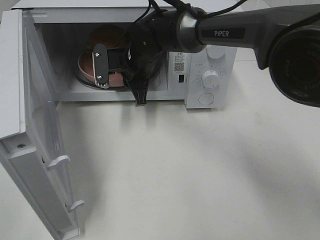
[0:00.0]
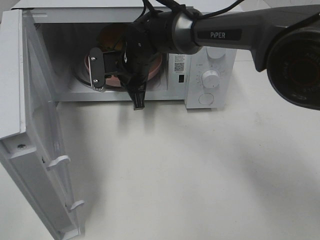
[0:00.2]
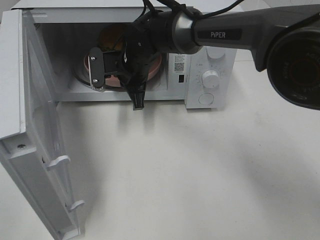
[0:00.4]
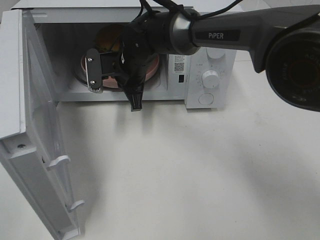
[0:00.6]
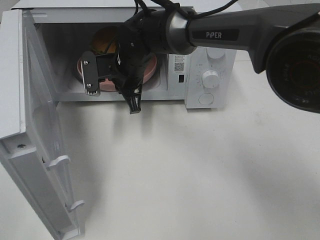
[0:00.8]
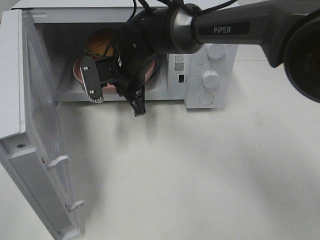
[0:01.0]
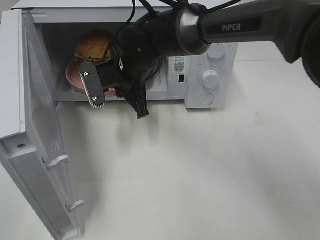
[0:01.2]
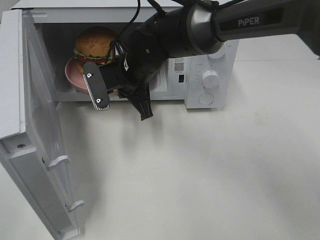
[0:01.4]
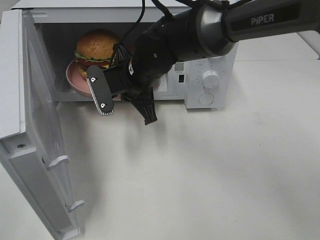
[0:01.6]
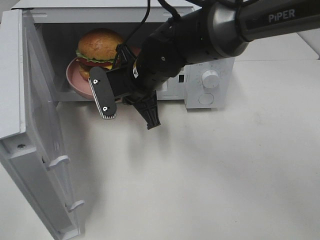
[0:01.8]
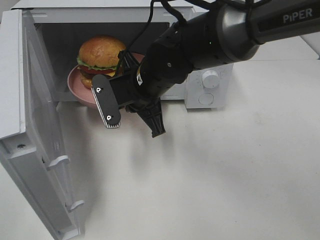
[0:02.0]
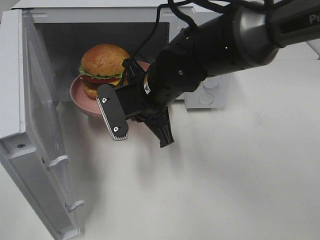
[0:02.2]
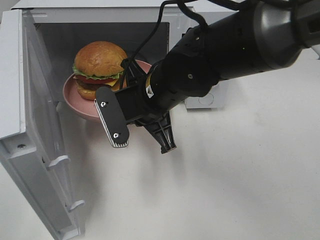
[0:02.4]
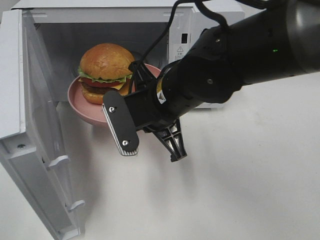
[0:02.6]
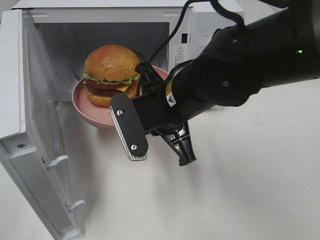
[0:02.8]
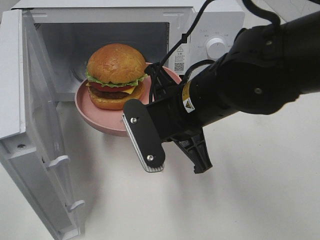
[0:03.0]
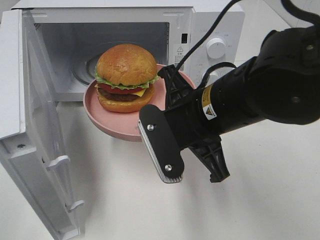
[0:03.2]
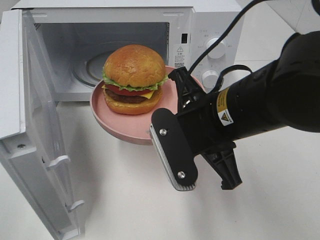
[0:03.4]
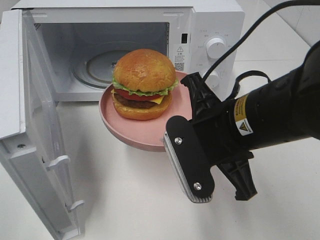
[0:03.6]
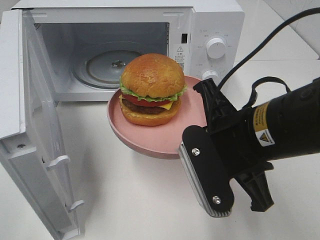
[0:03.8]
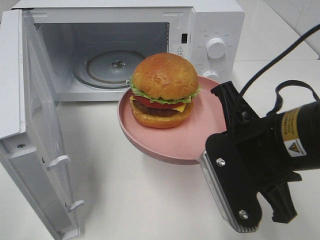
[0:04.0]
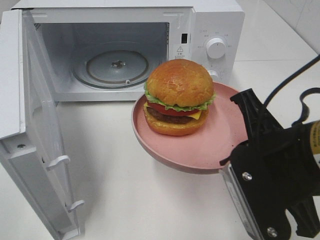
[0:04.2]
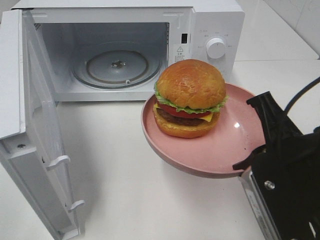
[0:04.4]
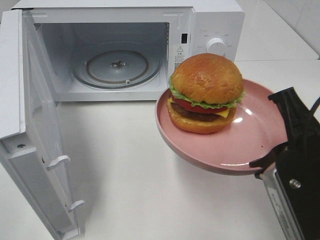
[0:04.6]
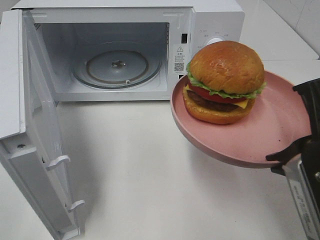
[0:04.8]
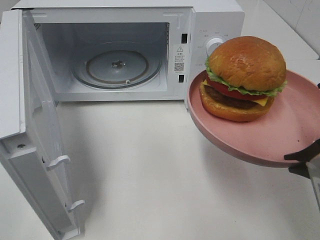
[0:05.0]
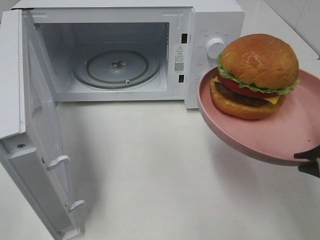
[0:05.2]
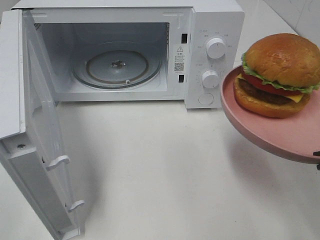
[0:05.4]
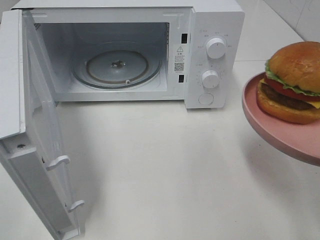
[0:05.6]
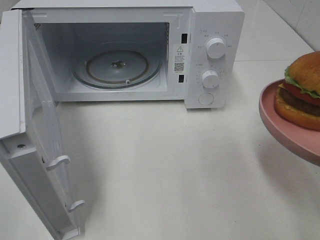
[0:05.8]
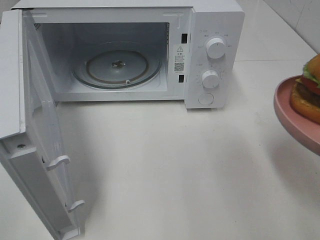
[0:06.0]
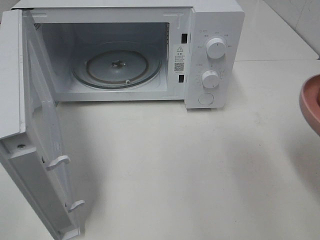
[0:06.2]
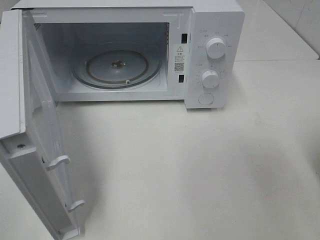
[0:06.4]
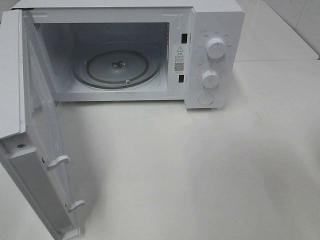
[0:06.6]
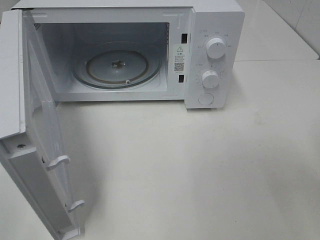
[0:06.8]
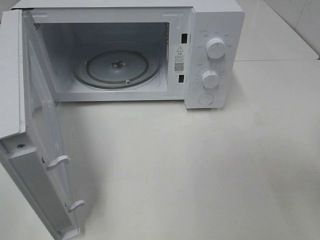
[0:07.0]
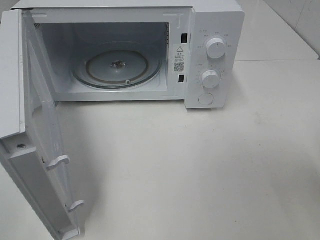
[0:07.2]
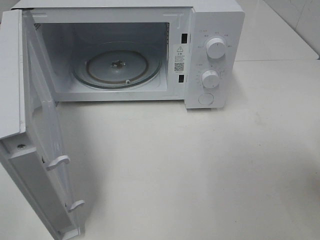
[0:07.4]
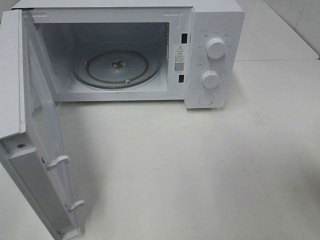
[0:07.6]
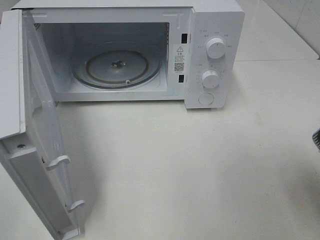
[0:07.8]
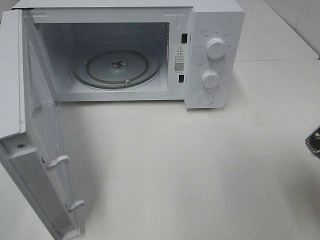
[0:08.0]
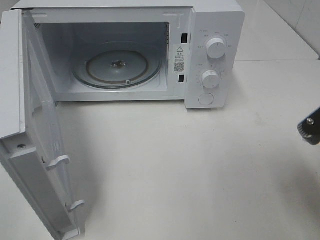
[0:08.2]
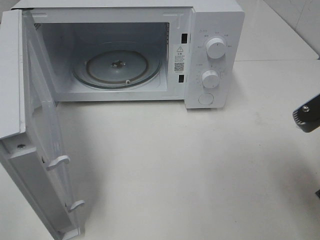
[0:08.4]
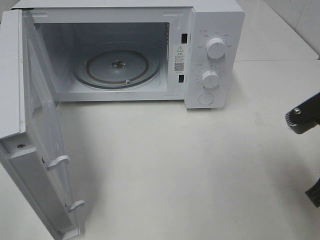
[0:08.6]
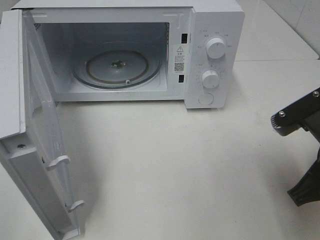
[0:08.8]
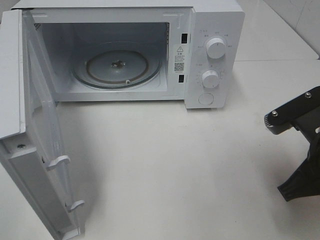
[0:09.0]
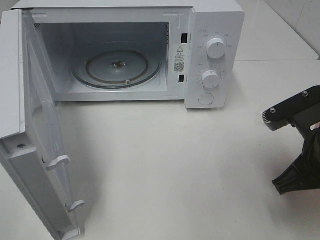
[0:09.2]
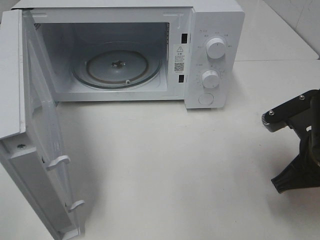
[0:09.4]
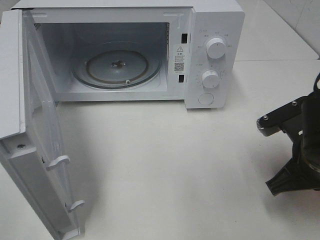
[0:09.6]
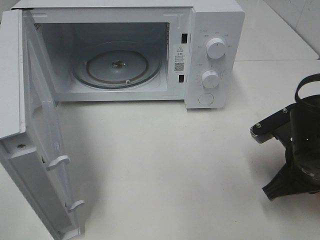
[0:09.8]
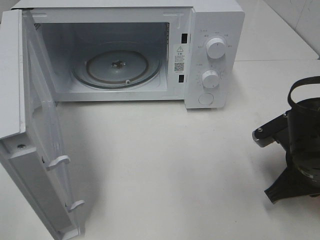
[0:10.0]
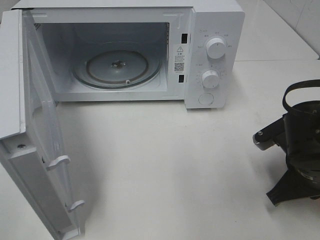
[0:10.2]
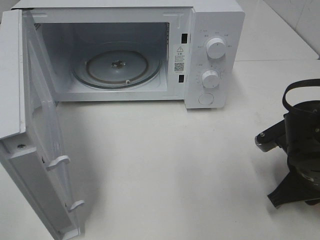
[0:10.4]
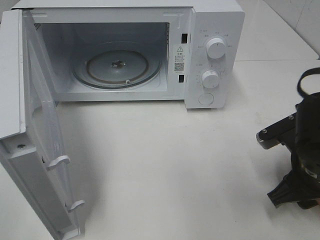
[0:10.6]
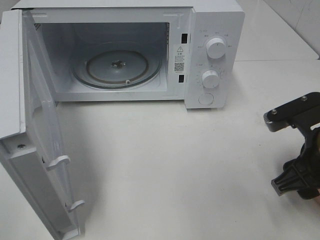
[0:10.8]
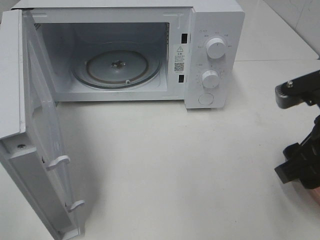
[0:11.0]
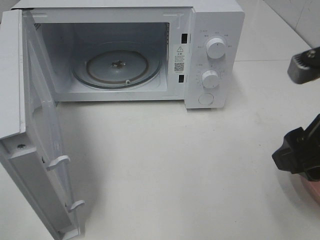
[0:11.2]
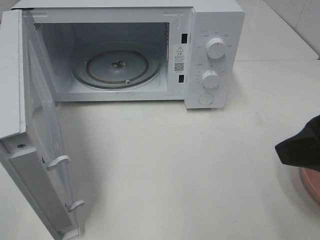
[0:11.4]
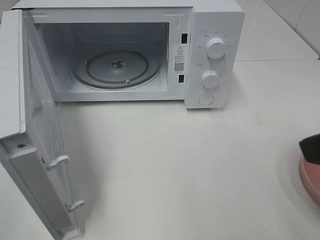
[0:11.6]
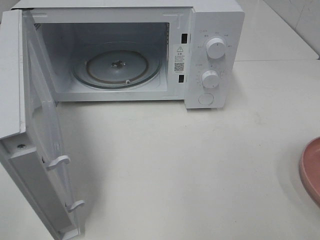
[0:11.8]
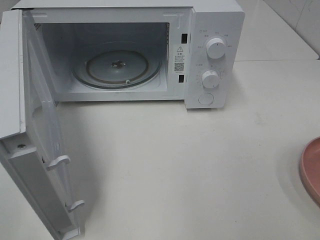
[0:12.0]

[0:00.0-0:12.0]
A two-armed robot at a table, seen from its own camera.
Task of the whole recording: Heat the burger.
Step, 0:00.4 to 0:10.4: Right hand: place the plate on the table.
0:00.0 to 0:01.6: The right gripper moves backward, about 5 cm.
0:01.6 to 0:03.0: The right gripper travels backward and to the right by about 15 cm.
0:03.0 to 0:04.4: The right gripper moves to the right and backward, approximately 15 cm.
0:04.4 to 0:06.0: The right gripper shifts about 10 cm to the right.
0:07.6 to 0:09.0: The right gripper shifts by approximately 10 cm.
0:09.0 to 0:10.4: The right gripper goes some 5 cm downward.
0:10.4 to 0:12.0: The right gripper travels upward and backward by some 25 cm, and opens up.

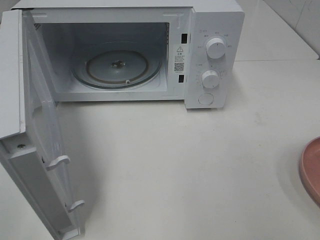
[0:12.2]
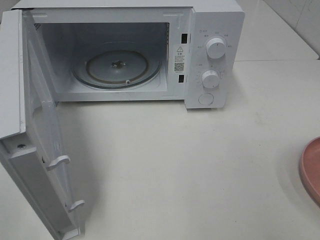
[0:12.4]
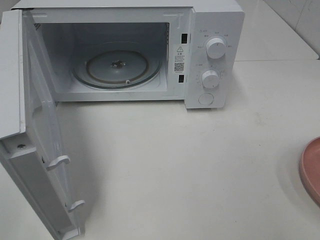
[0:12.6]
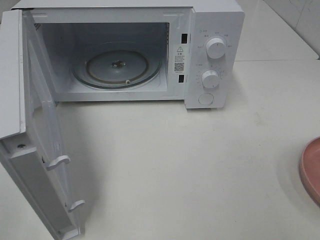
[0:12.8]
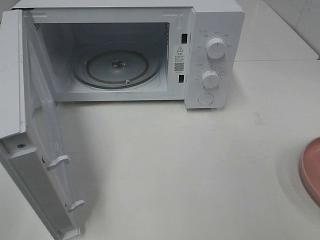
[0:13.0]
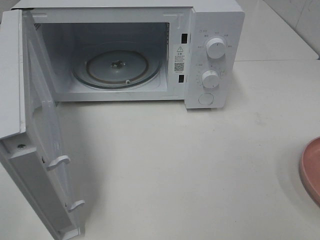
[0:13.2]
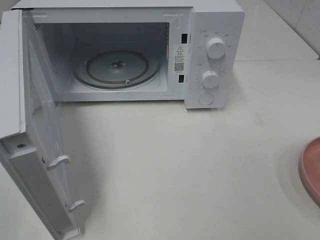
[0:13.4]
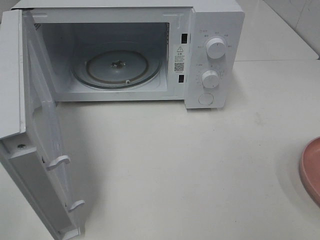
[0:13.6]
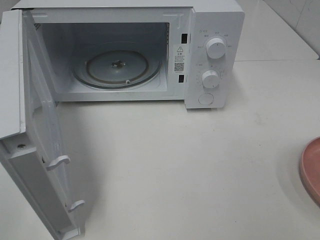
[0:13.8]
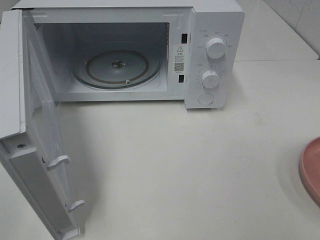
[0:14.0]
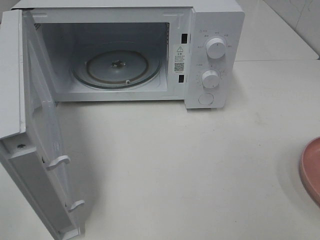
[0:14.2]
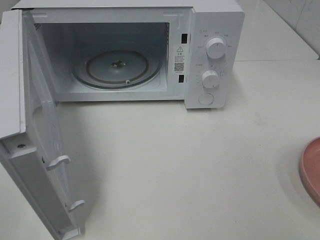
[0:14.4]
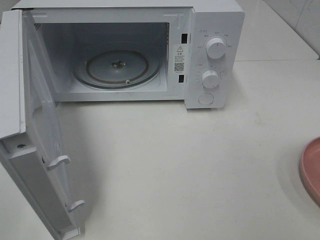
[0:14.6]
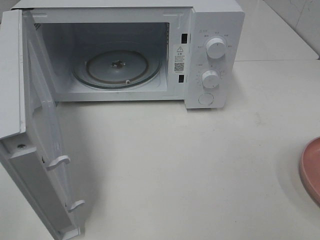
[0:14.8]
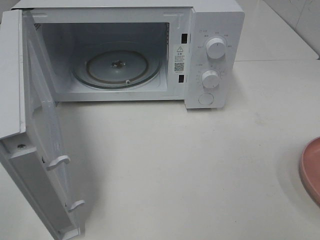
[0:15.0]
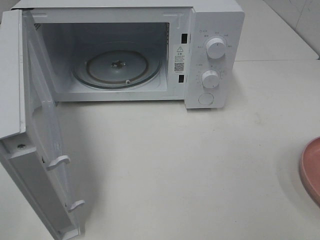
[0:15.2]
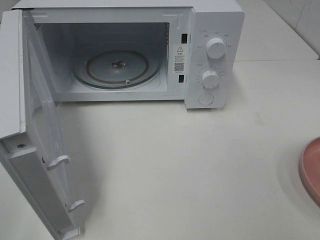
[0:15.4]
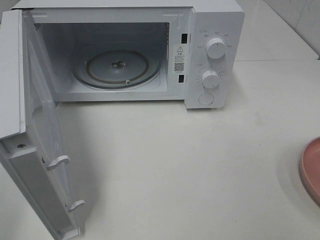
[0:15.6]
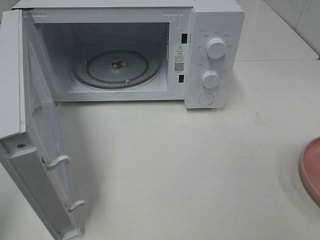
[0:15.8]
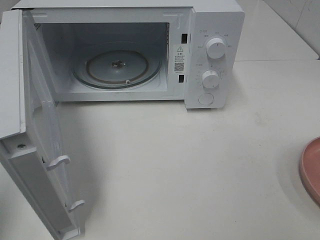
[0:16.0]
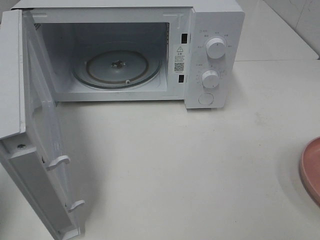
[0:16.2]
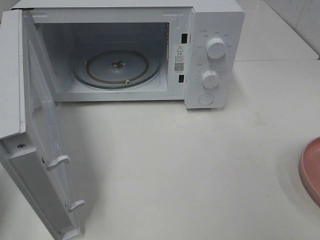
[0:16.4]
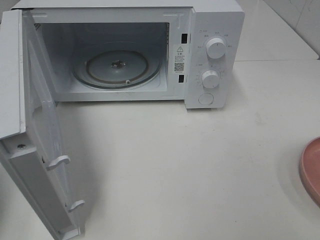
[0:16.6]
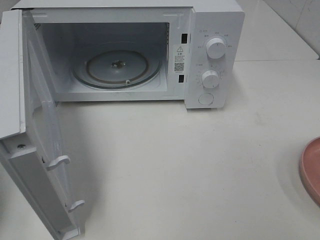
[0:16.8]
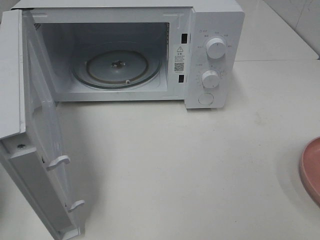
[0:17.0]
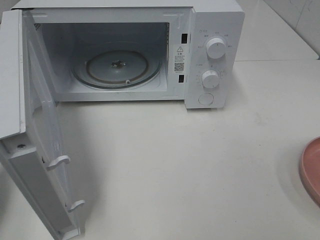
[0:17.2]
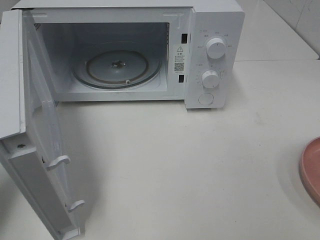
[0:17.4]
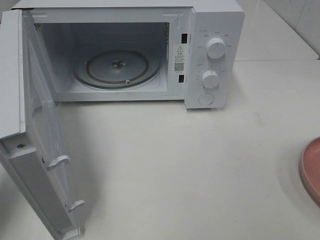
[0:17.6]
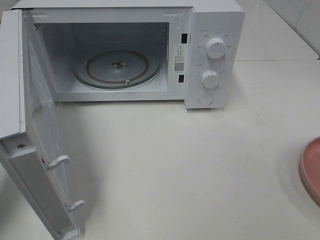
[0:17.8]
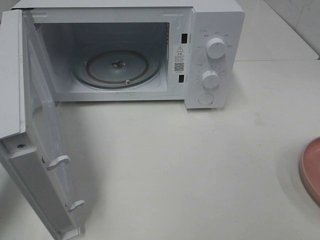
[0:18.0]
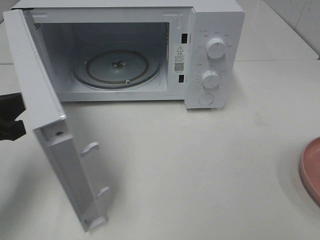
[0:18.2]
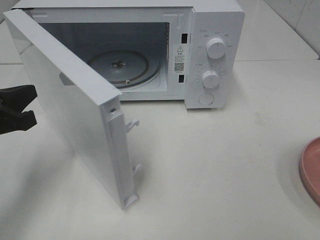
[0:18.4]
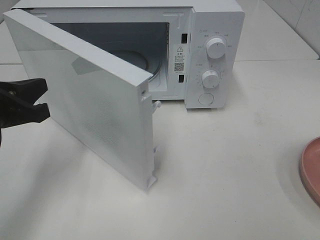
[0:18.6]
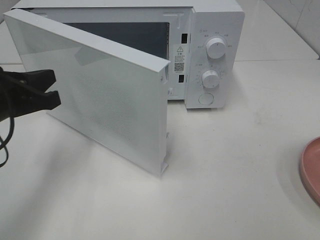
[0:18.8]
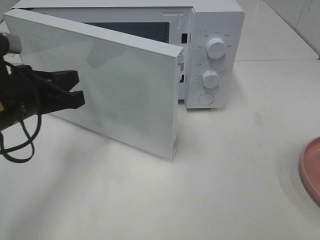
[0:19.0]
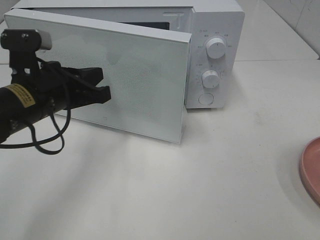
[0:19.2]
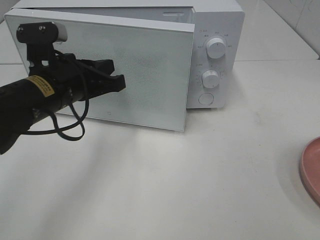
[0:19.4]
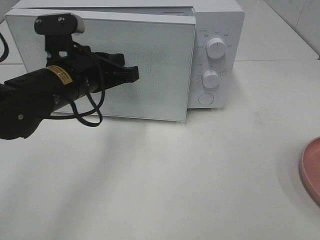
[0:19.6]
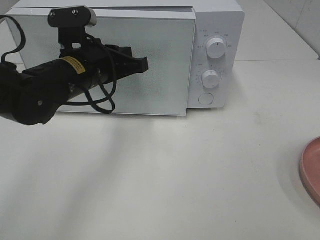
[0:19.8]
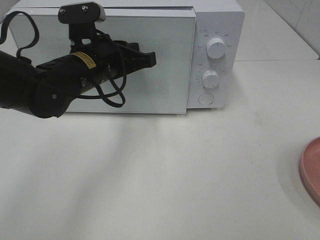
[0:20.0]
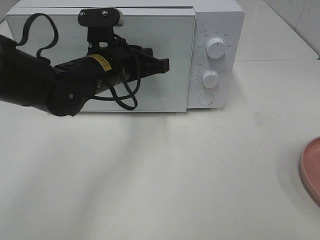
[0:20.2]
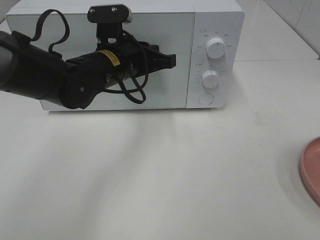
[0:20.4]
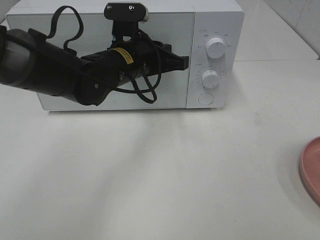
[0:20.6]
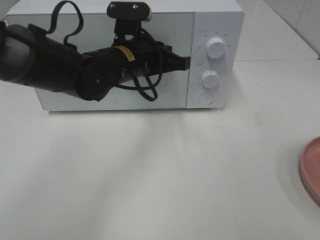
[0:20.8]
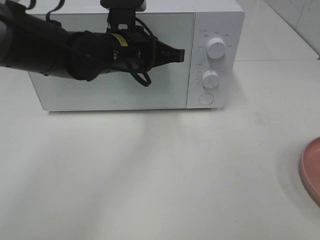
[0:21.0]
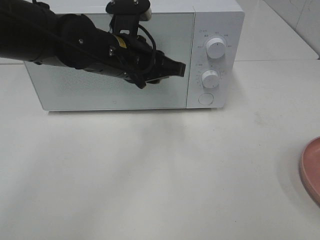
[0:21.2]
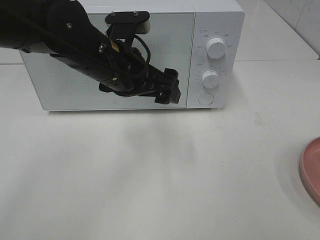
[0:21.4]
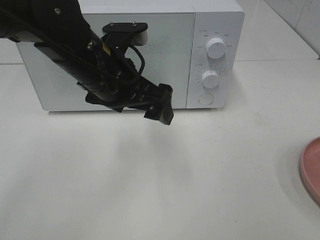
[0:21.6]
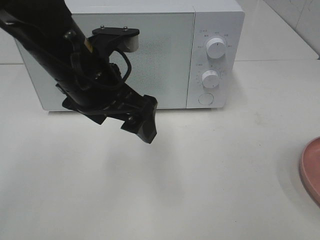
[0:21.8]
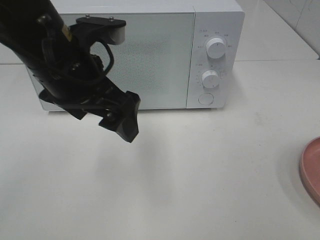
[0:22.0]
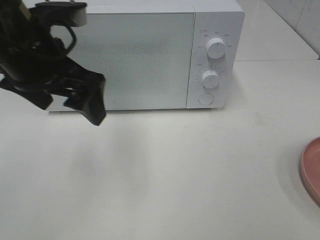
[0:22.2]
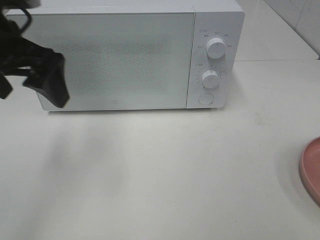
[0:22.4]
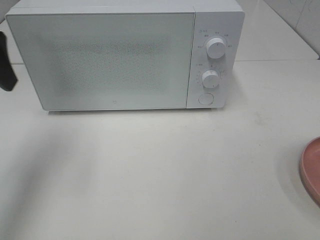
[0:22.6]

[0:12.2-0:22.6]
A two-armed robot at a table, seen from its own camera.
Task of the whole recording: Heat the burger.
Step, 0:12.2 to 0:21.0: Left hand: close the microwave door.
0:13.6 to 0:15.2: Neither gripper changes place.
0:16.6 to 0:18.2: The left gripper moves downward, forward and to the right, approximately 15 cm.
0:18.2 to 0:19.6: The left gripper heads to the right and forward, covering roughly 15 cm.
0:19.6 to 0:21.2: The left gripper travels to the right by some 5 cm, and opens up.
0:21.2 to 0:22.6: The left gripper heads to the left and upward, covering some 25 cm, and opens.
